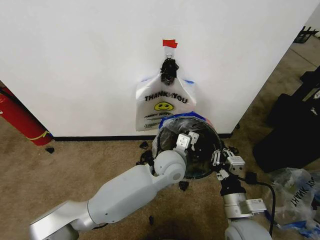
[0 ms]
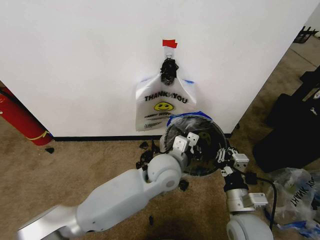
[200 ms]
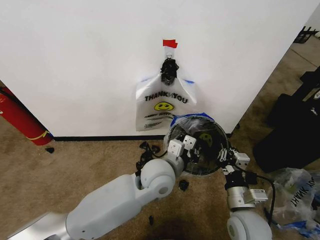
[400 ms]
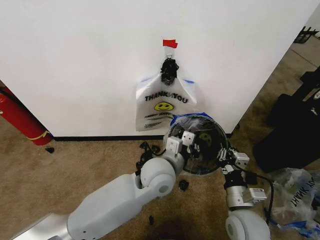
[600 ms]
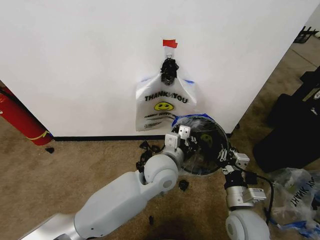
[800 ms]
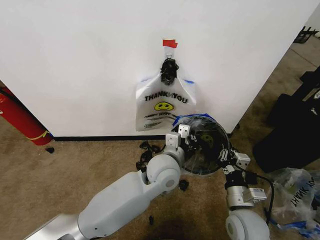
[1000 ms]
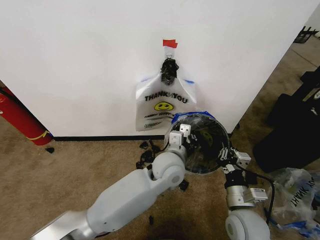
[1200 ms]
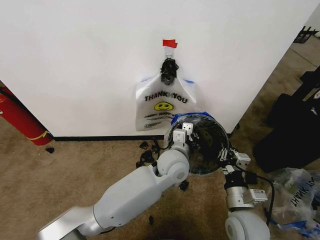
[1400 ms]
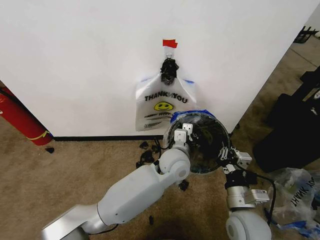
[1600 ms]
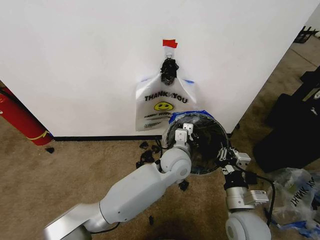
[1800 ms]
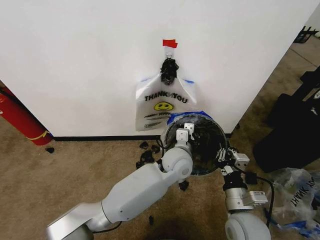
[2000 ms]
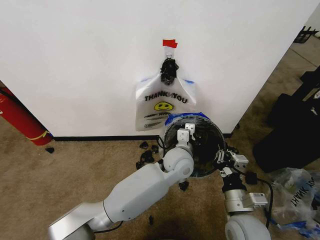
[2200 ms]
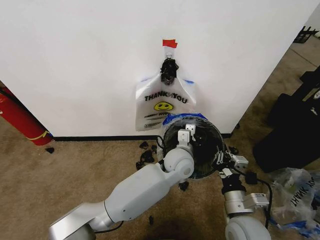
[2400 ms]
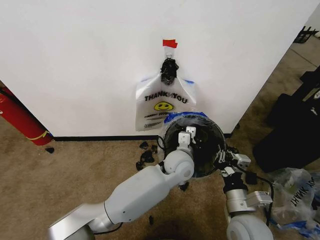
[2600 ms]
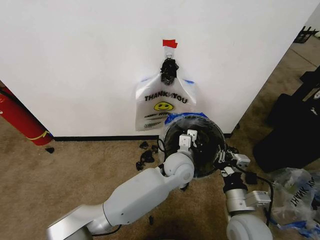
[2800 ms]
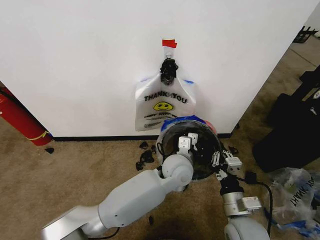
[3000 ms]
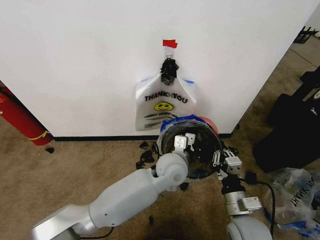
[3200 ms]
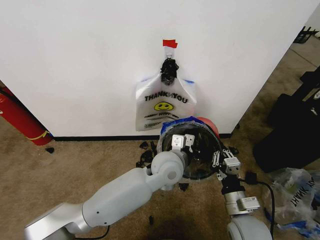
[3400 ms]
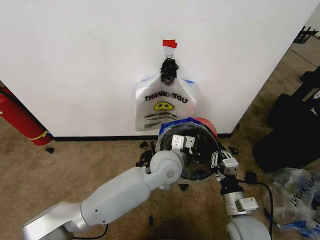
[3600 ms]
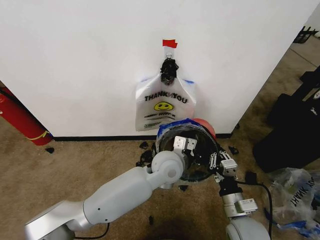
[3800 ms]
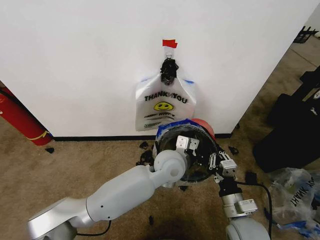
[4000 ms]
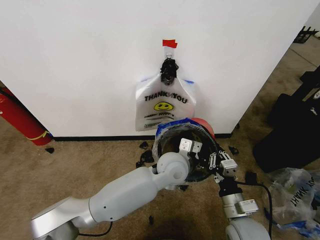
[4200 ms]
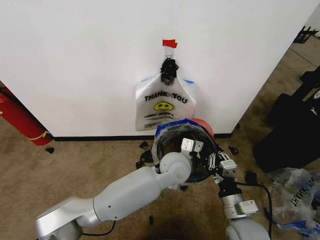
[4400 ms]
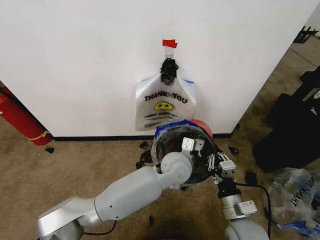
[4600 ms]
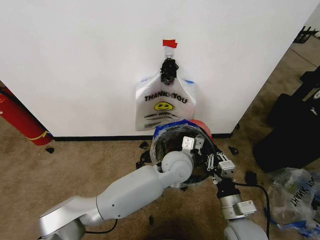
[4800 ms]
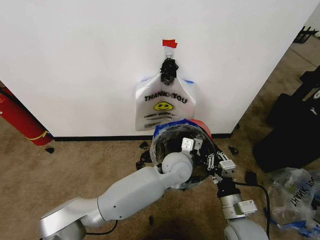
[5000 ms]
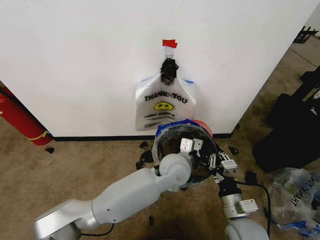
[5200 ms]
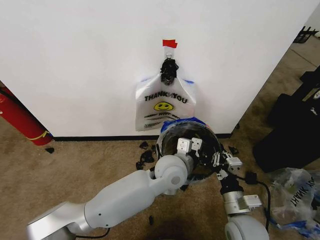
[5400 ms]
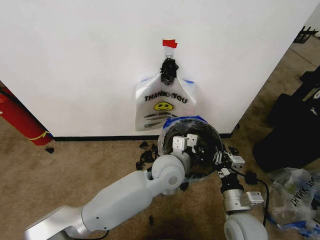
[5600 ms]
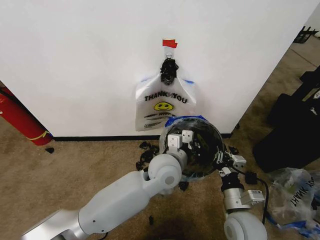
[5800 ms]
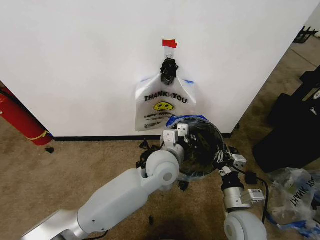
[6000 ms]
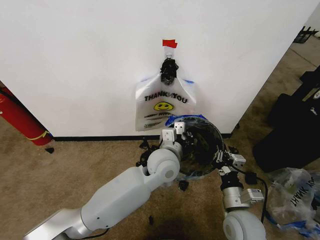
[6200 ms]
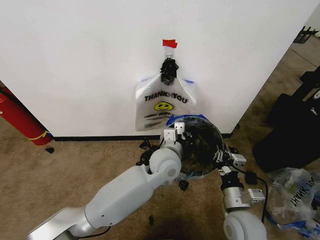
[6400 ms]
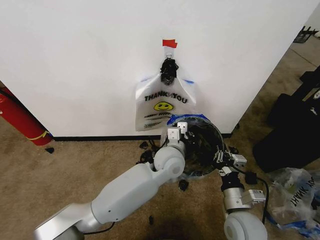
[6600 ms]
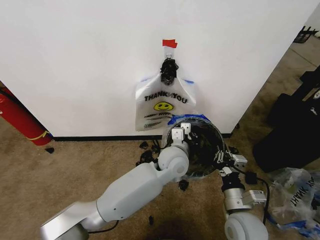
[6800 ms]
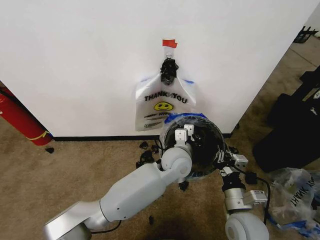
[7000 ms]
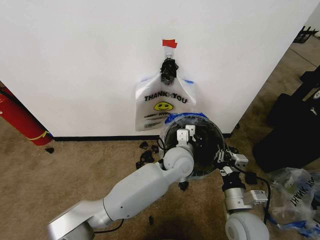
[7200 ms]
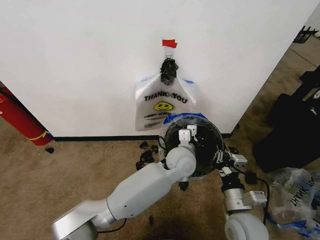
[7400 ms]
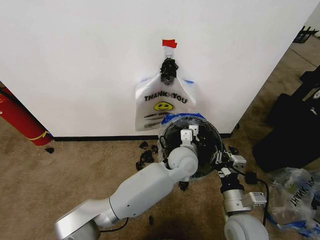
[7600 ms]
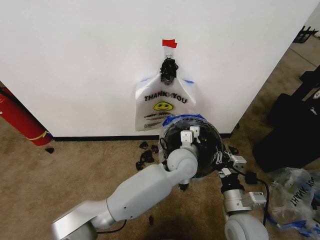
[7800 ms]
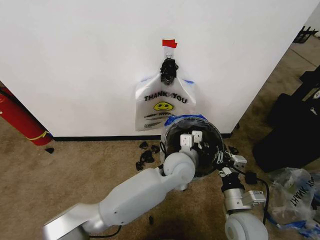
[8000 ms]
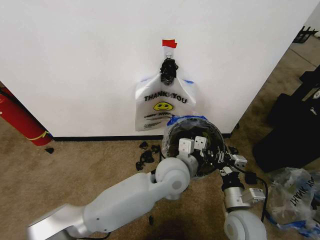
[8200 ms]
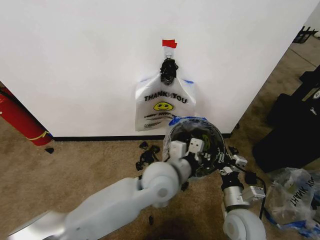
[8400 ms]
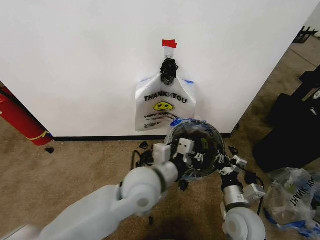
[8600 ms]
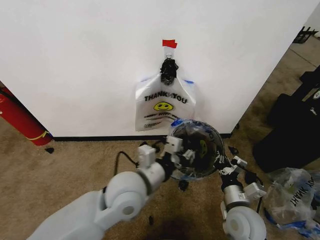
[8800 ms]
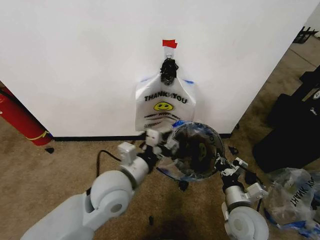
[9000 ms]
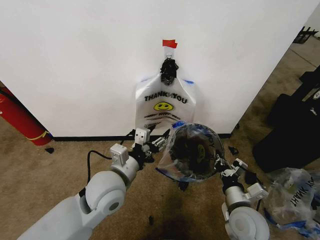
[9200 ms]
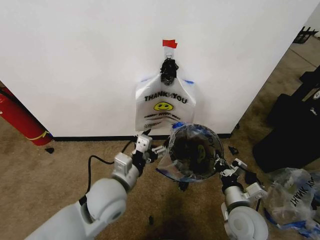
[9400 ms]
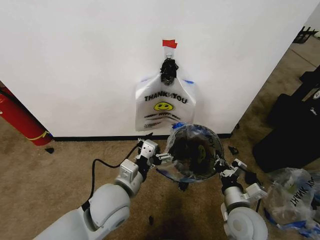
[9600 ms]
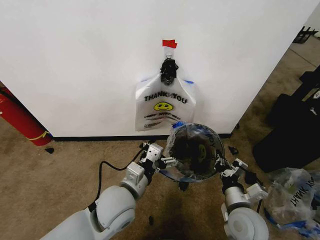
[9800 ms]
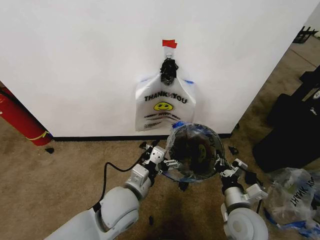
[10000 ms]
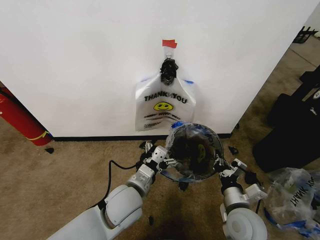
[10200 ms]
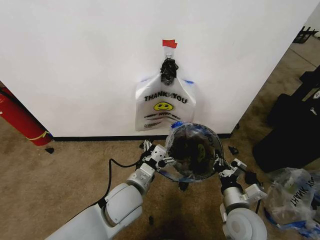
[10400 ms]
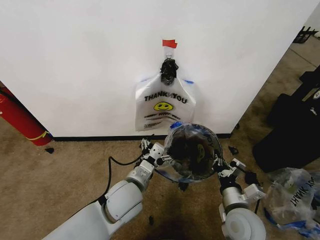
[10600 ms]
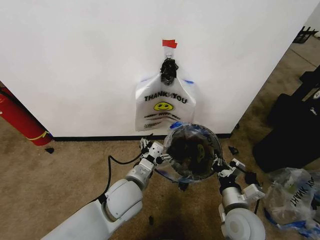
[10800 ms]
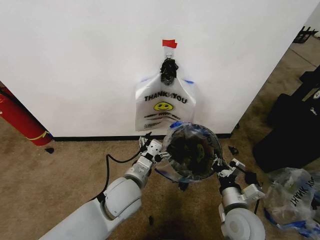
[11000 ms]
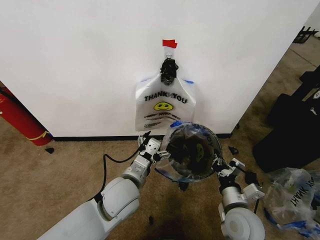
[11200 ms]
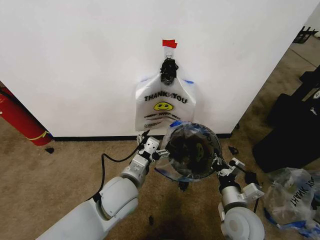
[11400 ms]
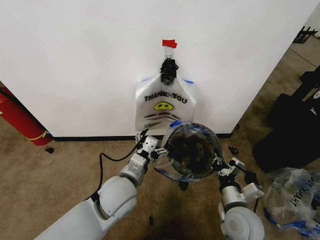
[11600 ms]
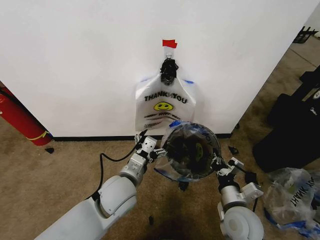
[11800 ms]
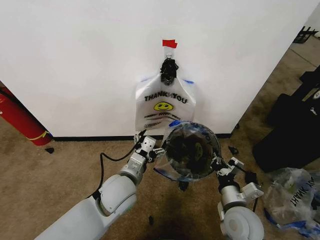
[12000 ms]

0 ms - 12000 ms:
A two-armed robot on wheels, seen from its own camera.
Task of the whole recording: Pick up the garbage bag from the wall and place it over the trash bin.
1600 ms - 3000 ms: The grippers move only a little.
3000 ms - 4400 ms: The grippers stay close to where they were, moving slightly.
4400 ms - 6000 ms: The left gripper changes place by some 5 cm.
6000 ms - 7600 ms: The left gripper moves to the right, roughly 5 cm.
7600 ms - 9000 ms: The left gripper goes about 25 cm to the left and backward, and opens up.
9000 ms - 10400 ms: The left gripper heads downward, covering roughly 10 cm, and opens.
10400 ms - 12000 ms: There are only small adjustments of the grippers.

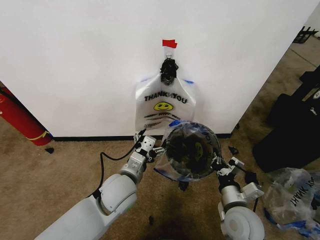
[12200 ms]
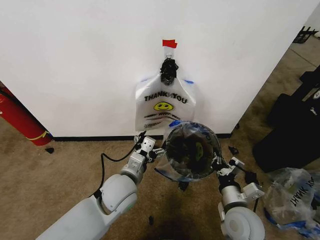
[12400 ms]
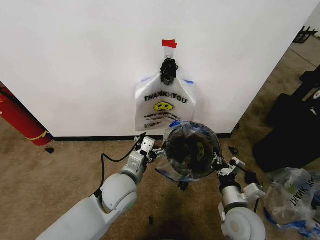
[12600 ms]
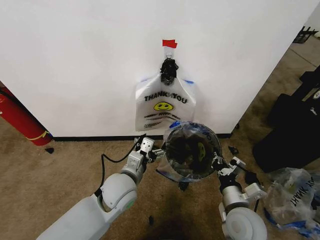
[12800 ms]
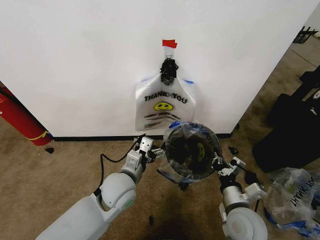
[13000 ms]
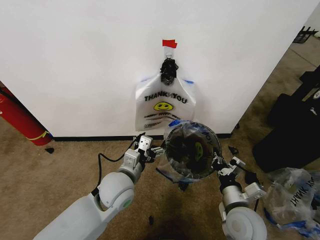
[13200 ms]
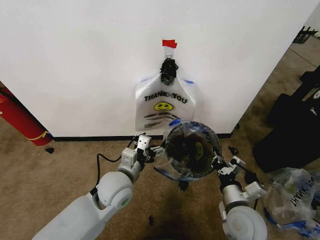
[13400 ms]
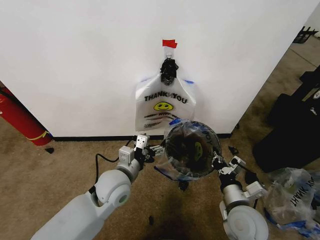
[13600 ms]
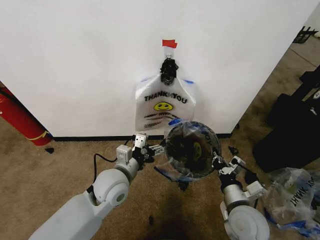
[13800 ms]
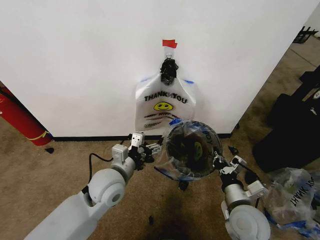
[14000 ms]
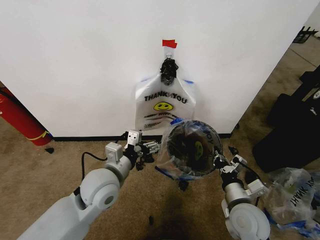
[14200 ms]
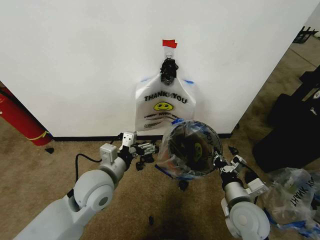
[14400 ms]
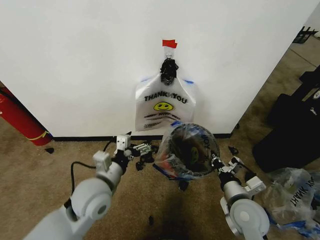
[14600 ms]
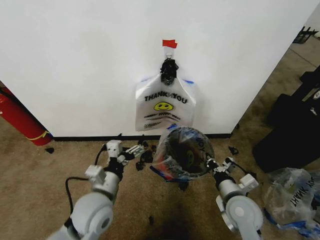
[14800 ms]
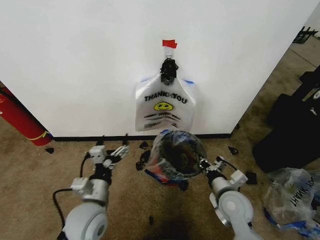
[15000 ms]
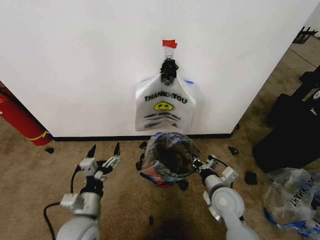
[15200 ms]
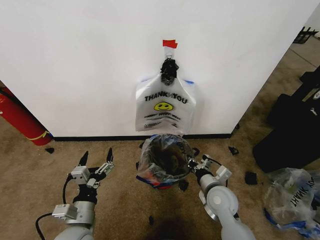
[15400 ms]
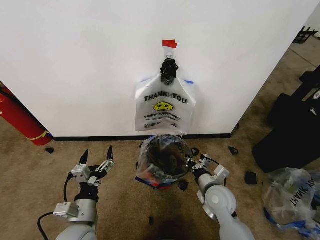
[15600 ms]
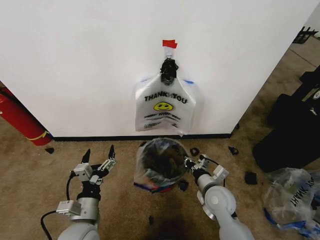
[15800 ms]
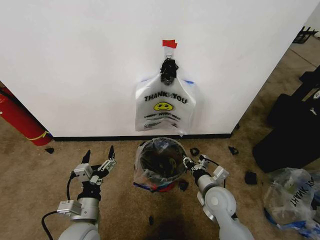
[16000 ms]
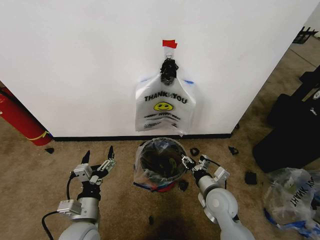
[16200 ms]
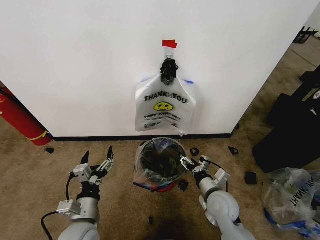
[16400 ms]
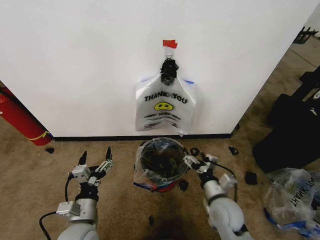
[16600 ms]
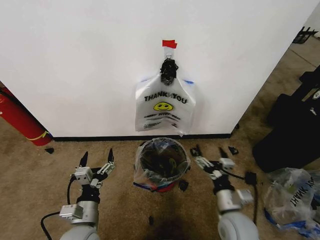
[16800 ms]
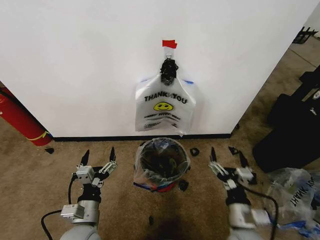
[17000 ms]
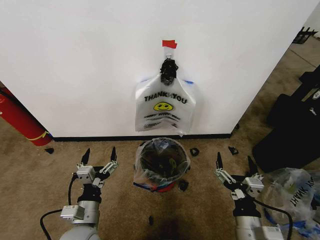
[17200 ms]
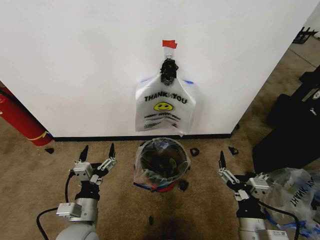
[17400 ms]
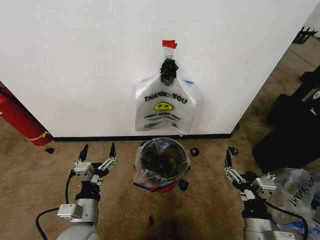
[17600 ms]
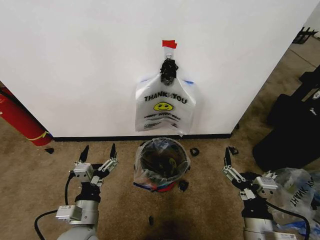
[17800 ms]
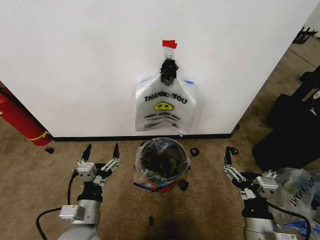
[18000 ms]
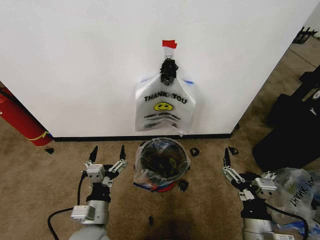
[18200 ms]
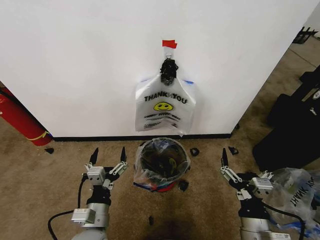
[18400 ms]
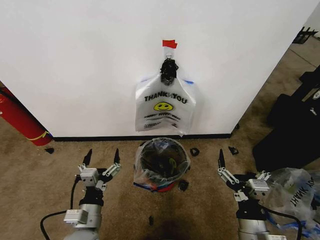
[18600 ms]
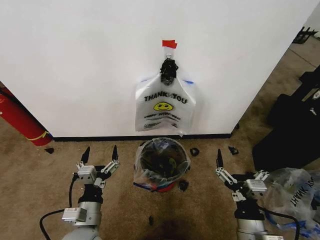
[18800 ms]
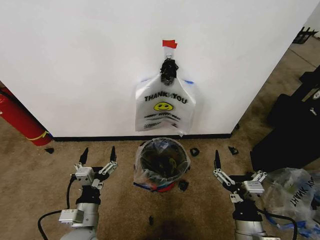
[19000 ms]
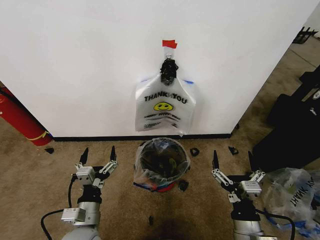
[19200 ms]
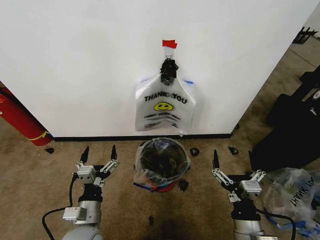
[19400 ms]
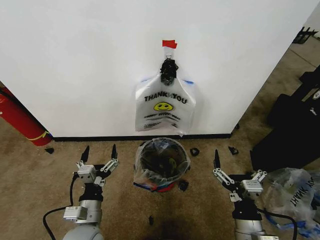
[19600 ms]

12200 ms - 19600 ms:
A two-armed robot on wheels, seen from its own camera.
Task of the whole recording: Pick up the garbage bag from the wall and place it over the trash bin.
13600 ms - 15200 ms: The left gripper is displaced backward, to the left and downward by approximately 15 cm, while the right gripper goes roughly 5 cm forward.
15200 ms - 16600 ms: The right gripper opens up.
16600 ms - 18200 ms: The right gripper goes some 15 cm backward and upward.
18200 ms - 19600 ms: The grippers stay close to where they were, moving slightly.

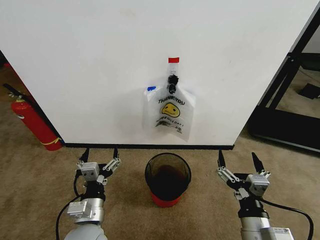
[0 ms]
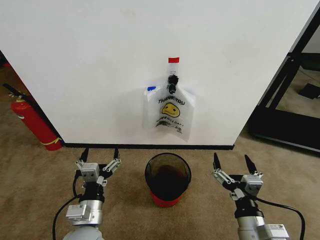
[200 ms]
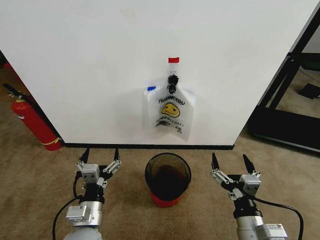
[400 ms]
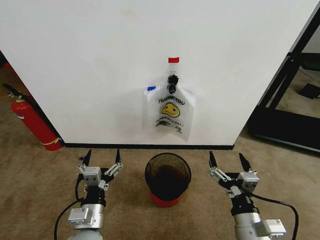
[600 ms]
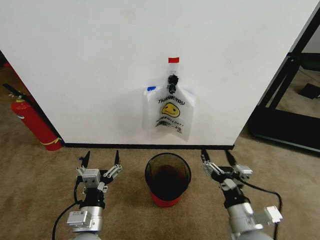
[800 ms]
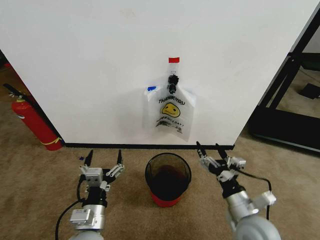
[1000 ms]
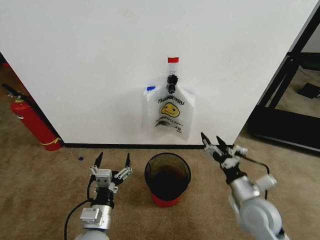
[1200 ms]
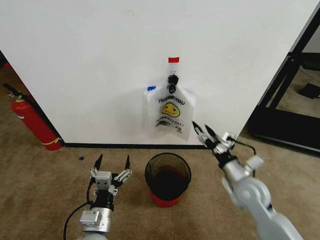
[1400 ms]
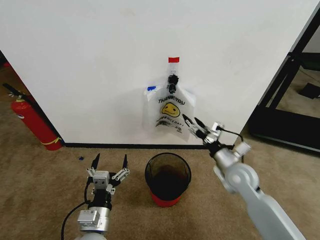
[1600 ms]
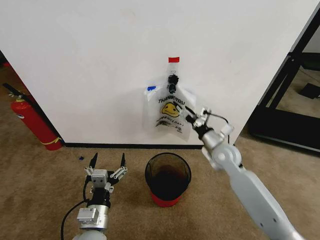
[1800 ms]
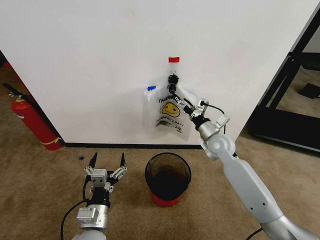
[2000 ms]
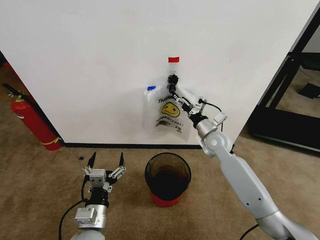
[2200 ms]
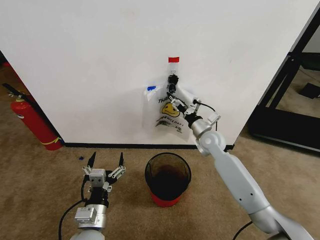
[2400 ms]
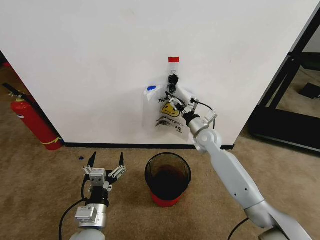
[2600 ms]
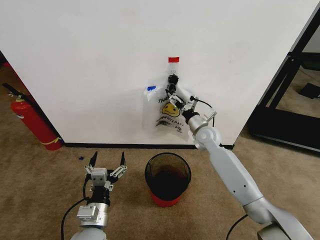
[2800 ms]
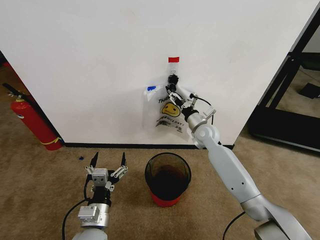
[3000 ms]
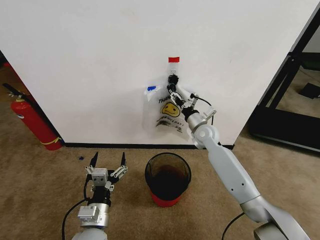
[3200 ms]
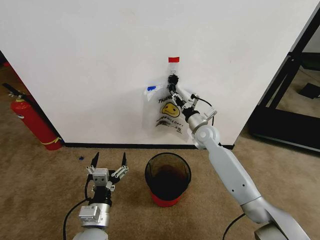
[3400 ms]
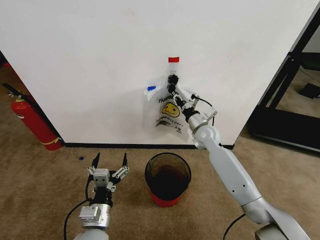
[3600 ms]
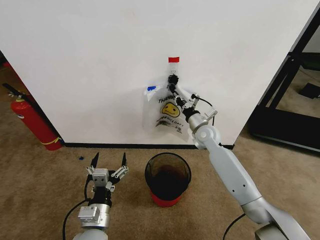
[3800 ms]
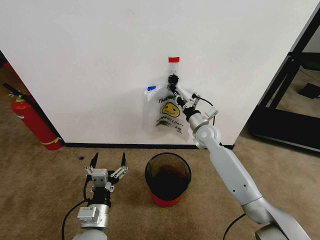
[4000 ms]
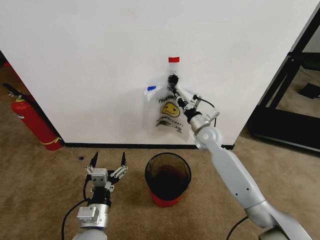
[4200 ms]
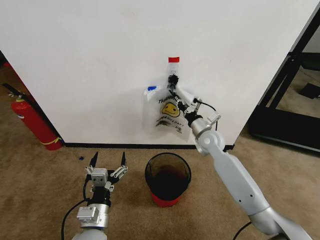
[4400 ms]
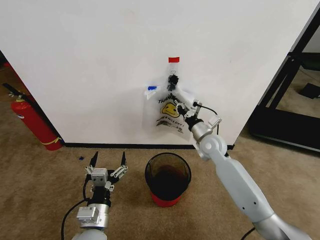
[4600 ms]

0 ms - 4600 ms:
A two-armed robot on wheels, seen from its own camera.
Task of the whole recording: Pick up the garbage bag from the wall and place it over the trash bin.
1600 ms - 3000 ms: The right gripper goes some 15 cm forward and to the left.
3000 ms - 4600 ms: The right gripper is displaced backward by roughly 5 cm, and closes up.
